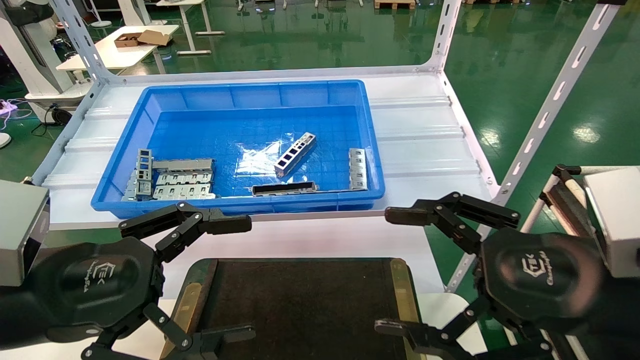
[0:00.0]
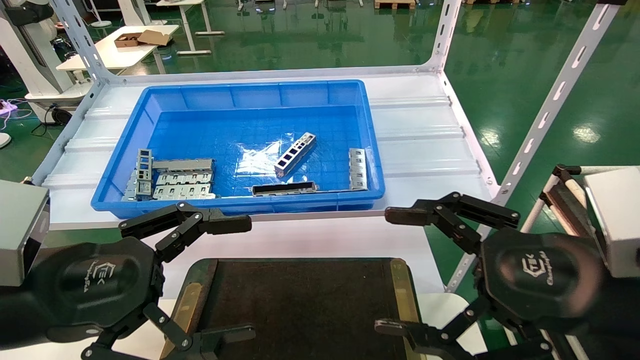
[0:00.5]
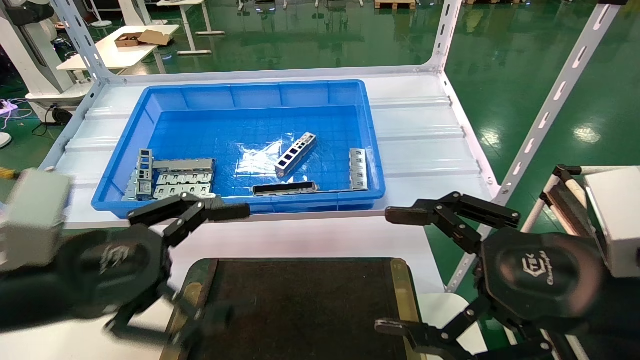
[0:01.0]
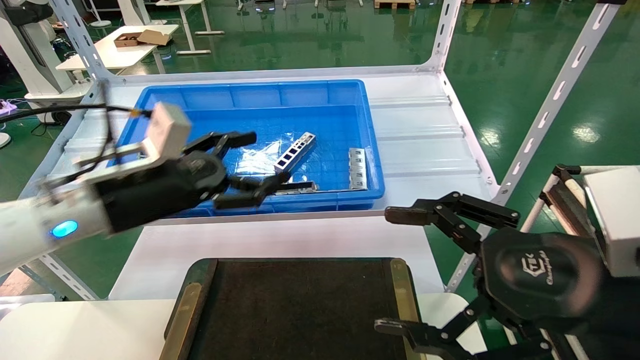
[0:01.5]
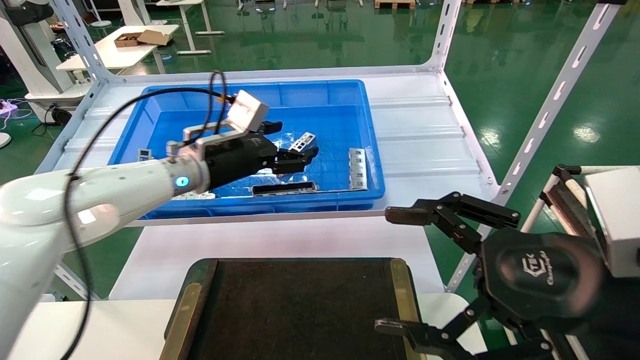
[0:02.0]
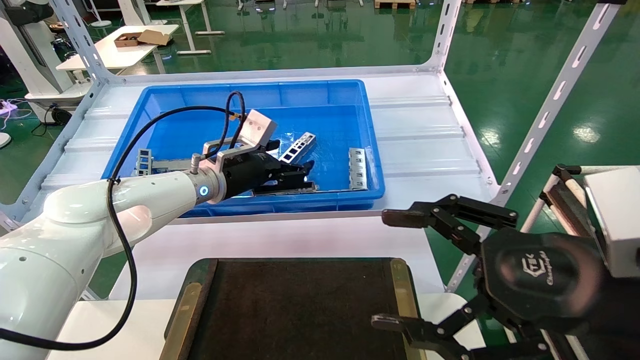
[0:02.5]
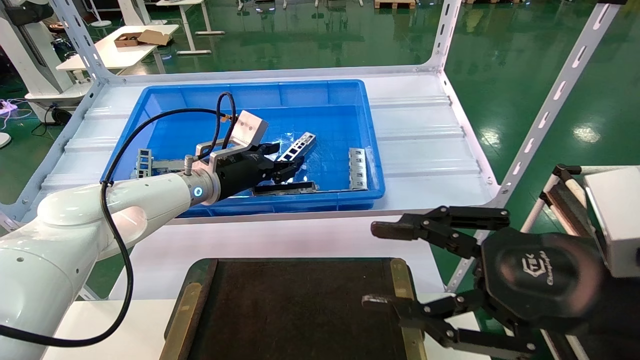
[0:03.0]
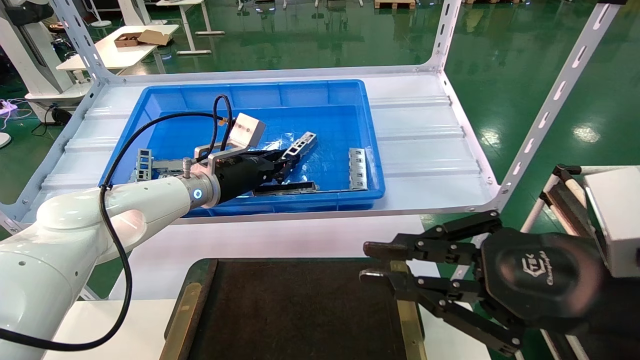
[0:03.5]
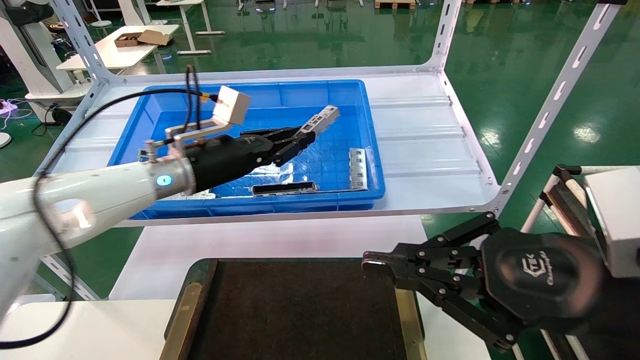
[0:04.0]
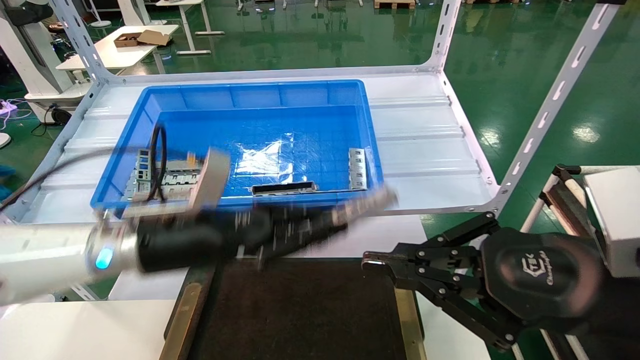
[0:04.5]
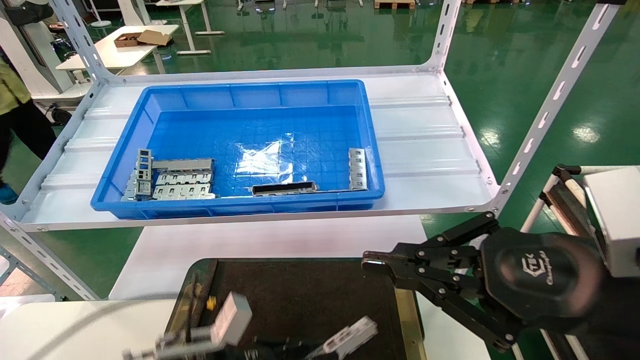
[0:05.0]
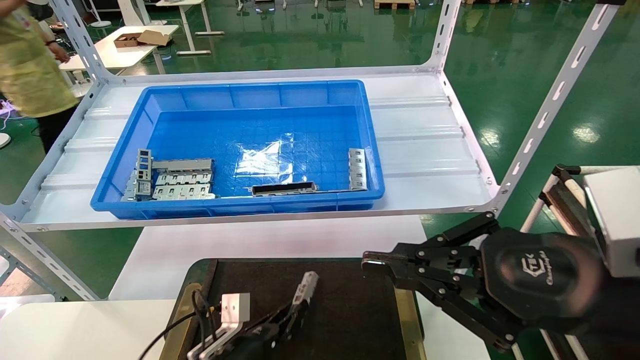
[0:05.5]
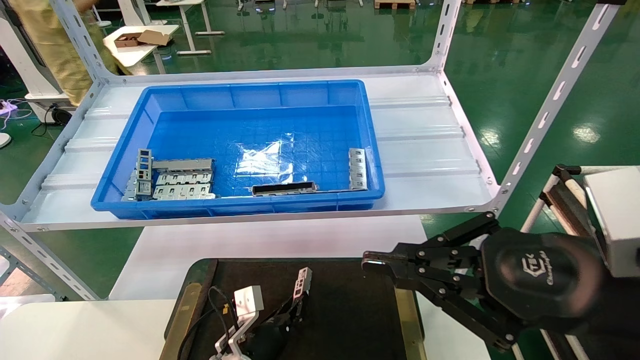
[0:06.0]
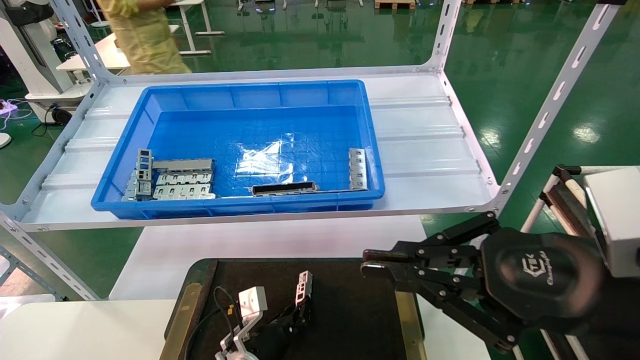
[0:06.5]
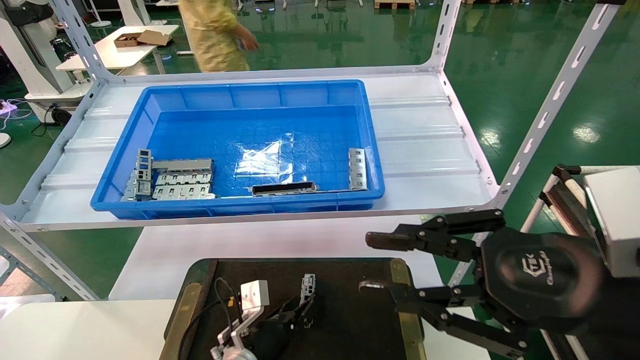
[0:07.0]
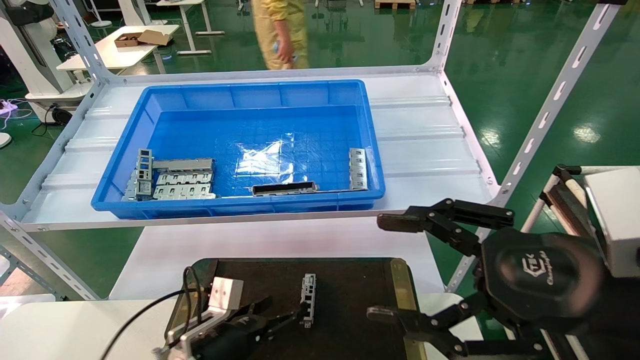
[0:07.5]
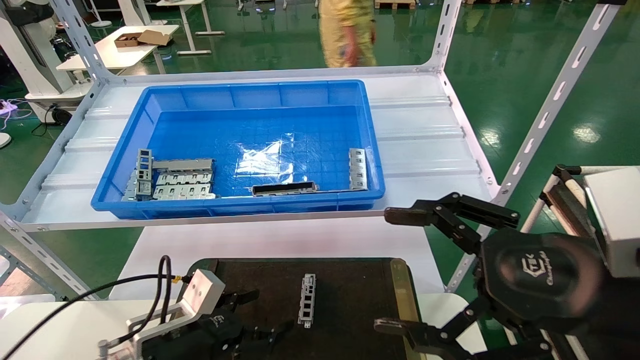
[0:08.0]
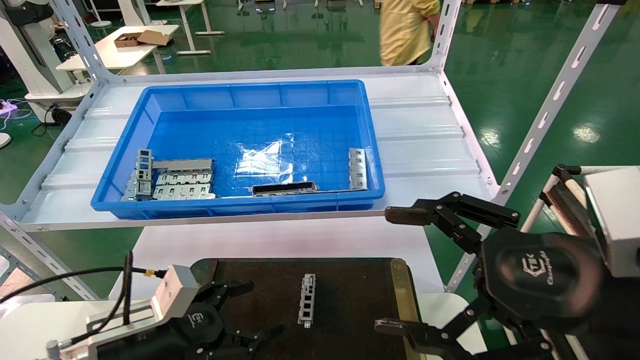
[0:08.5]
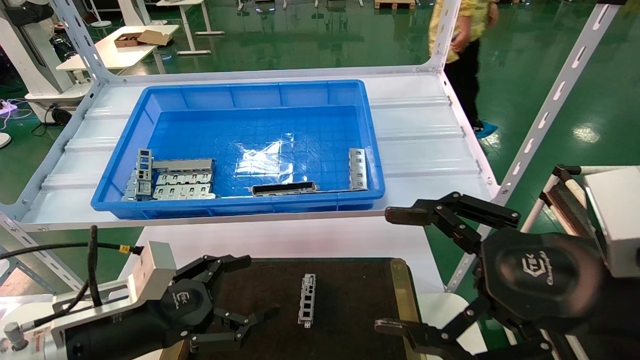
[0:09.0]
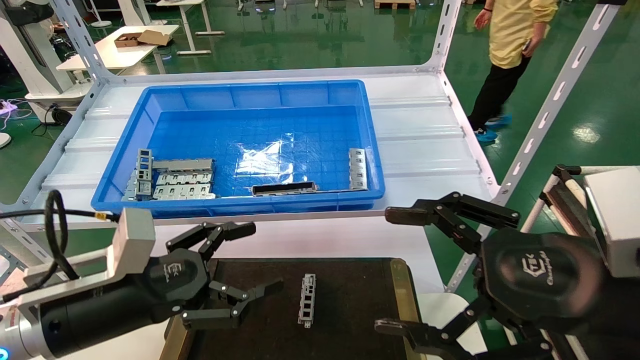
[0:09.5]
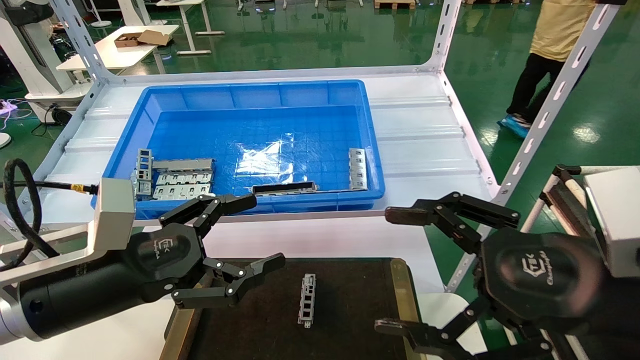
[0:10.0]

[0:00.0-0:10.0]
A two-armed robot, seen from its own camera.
Task of the whole recording: Grasp the part with one hand and place it on the black container.
Step, 0:01.5 to 0:03.5: Pick up the front USB bracket from the feeding area.
Step, 0:04.0 to 0:06.5: Place the front USB bracket into the box.
0:00.0 to 0:02.0: The left gripper travels forward by approximately 25 cm.
0:02.0 to 0:04.0: The right gripper closes its fingers. The left gripper closes its fingers.
0:04.0 to 0:06.0: The left gripper is displaced downward by some 35 cm.
0:06.0 to 0:08.0: The right gripper opens, while the left gripper travels to the left, upward and backward by roughly 15 cm, and opens its fingers.
0:08.0 to 0:10.0: The left gripper travels upward by some 15 cm.
